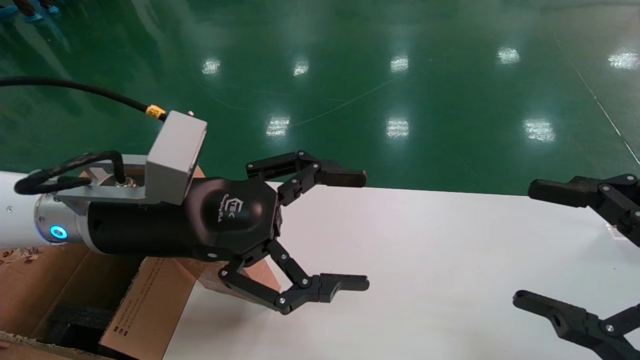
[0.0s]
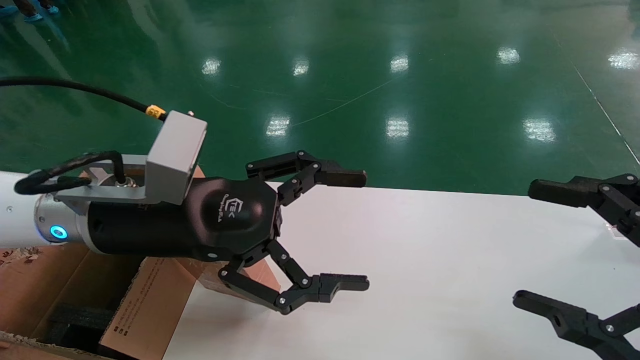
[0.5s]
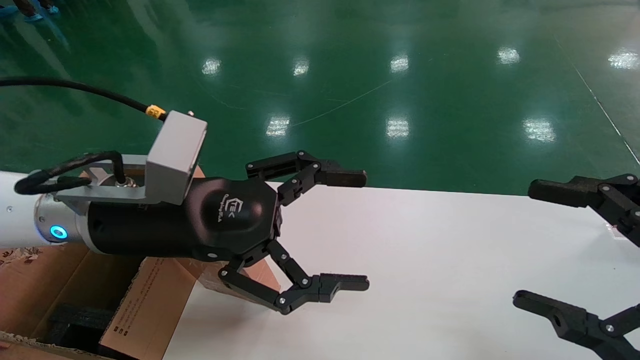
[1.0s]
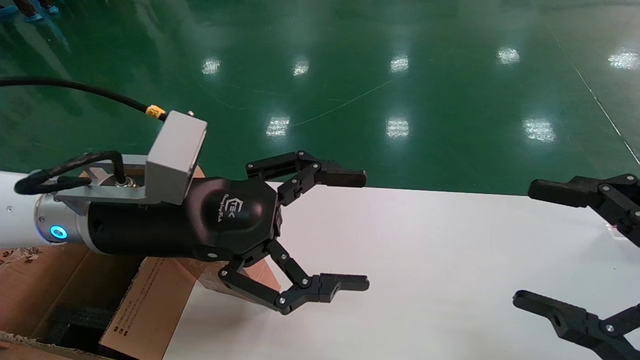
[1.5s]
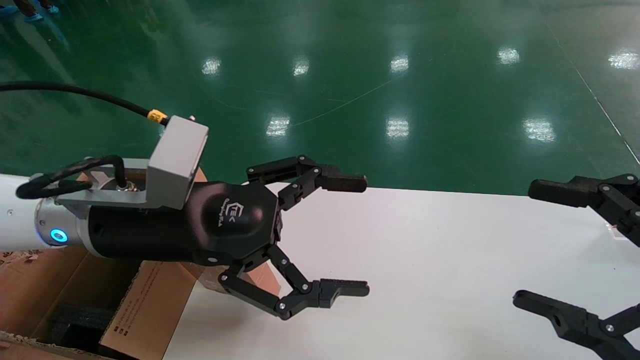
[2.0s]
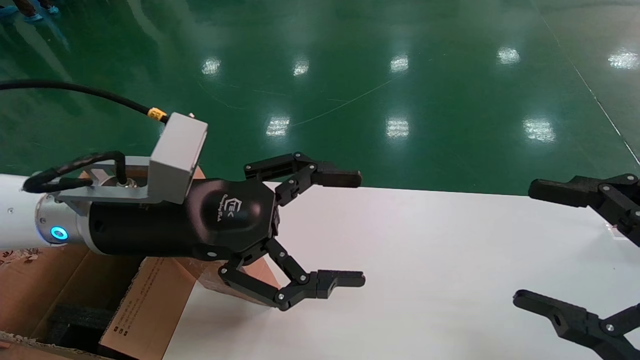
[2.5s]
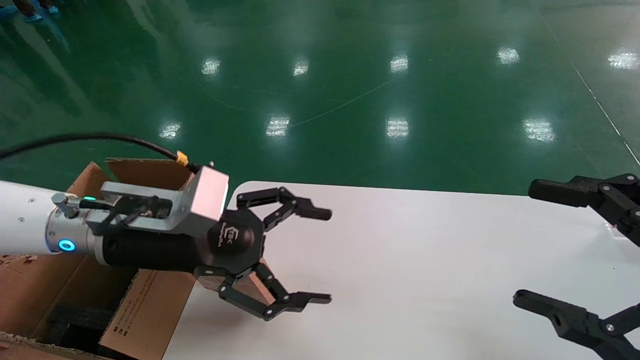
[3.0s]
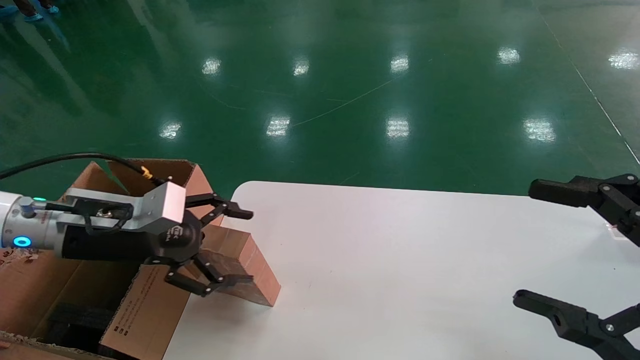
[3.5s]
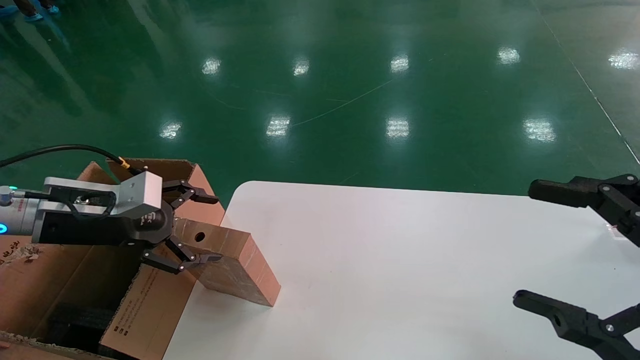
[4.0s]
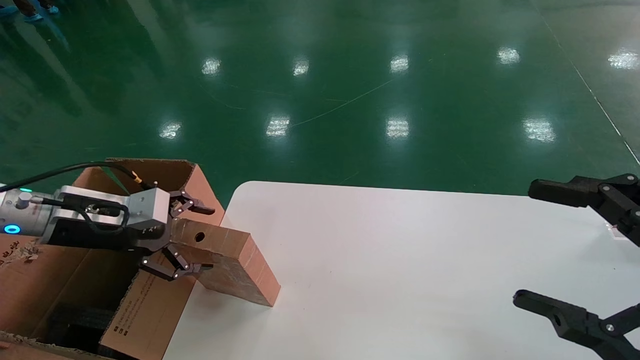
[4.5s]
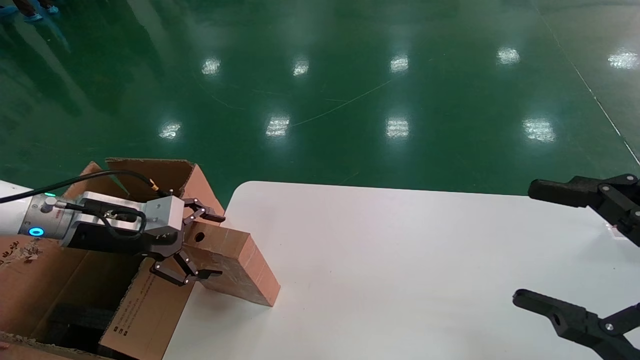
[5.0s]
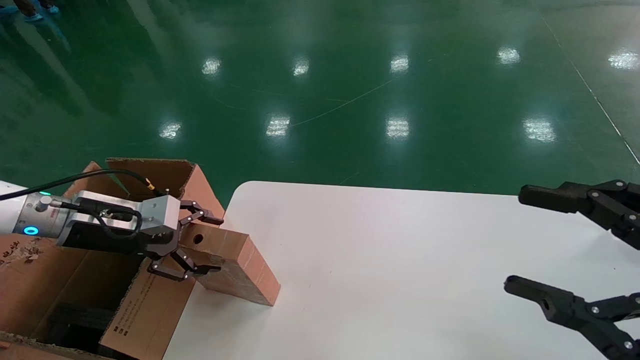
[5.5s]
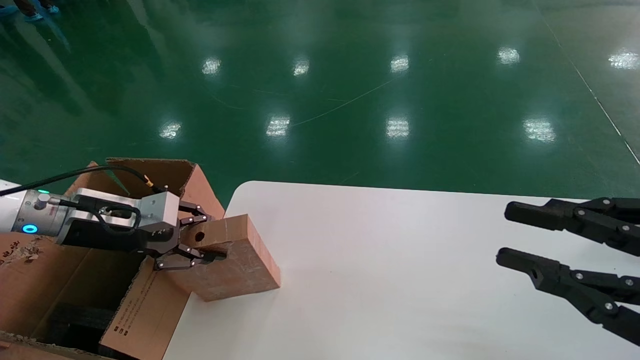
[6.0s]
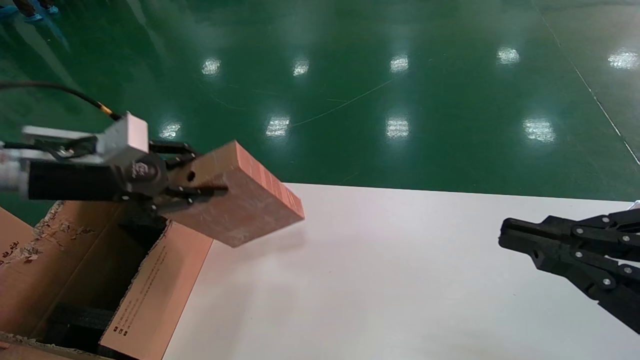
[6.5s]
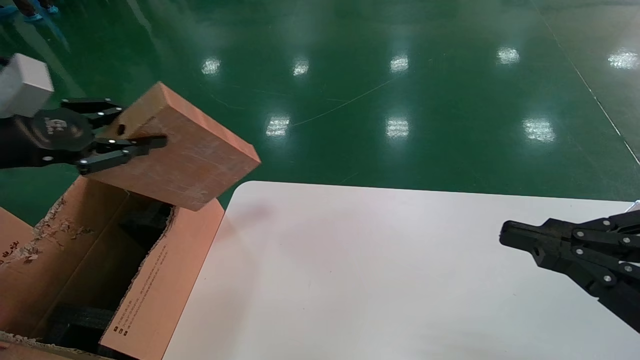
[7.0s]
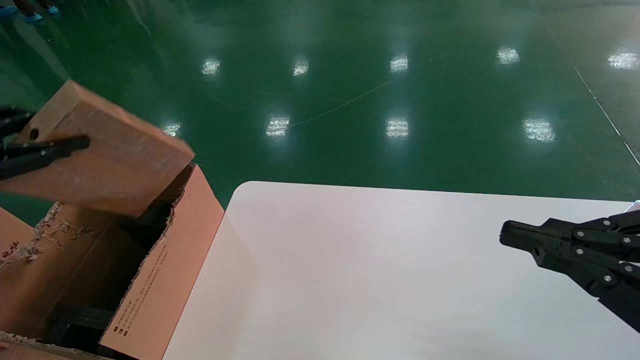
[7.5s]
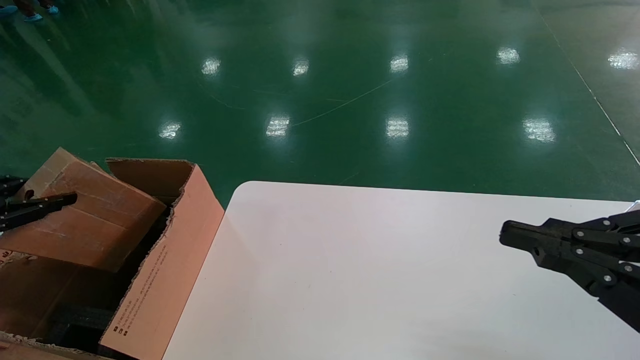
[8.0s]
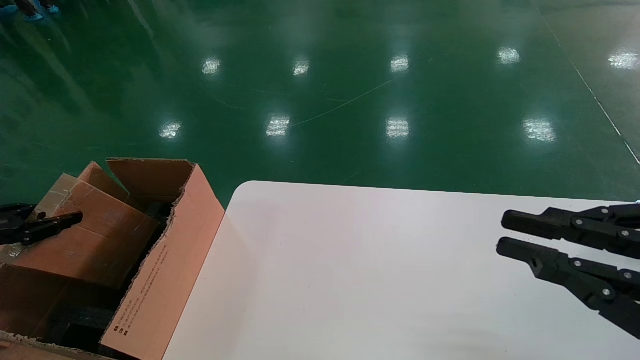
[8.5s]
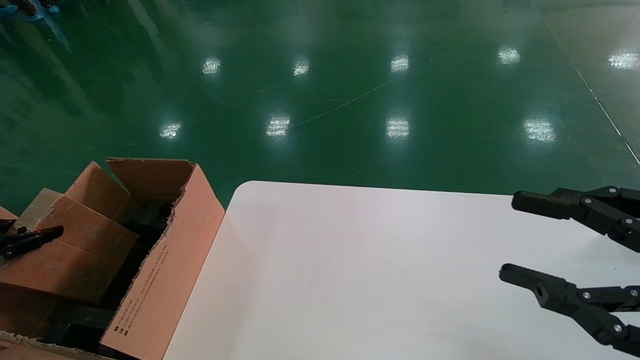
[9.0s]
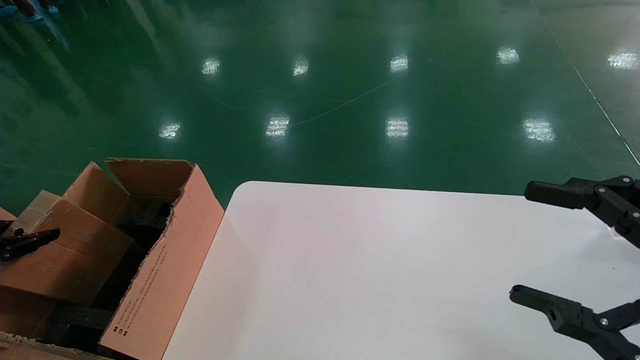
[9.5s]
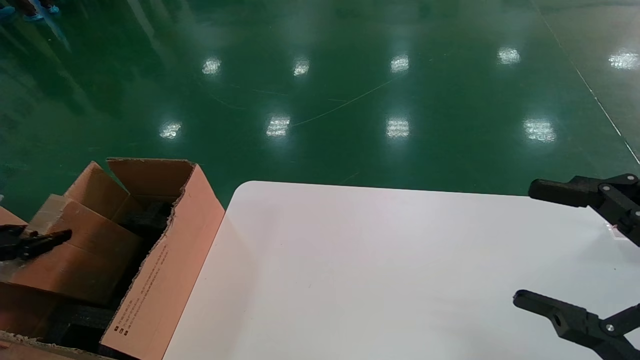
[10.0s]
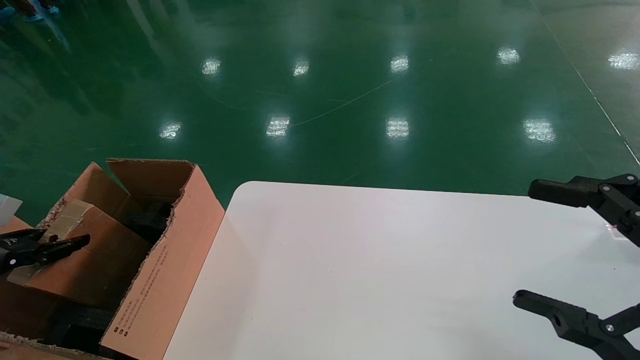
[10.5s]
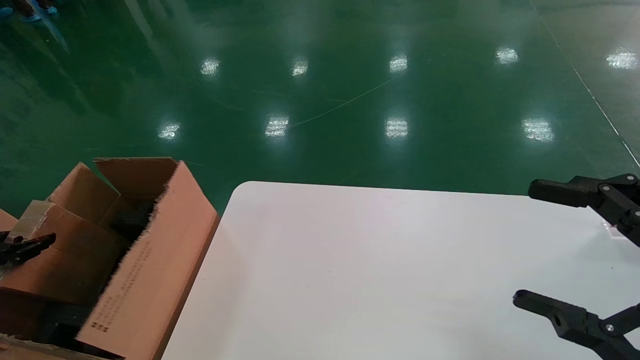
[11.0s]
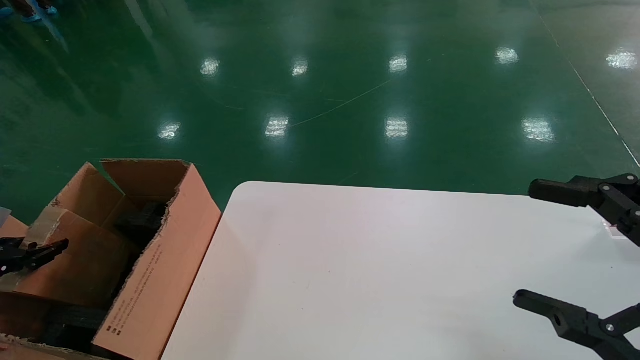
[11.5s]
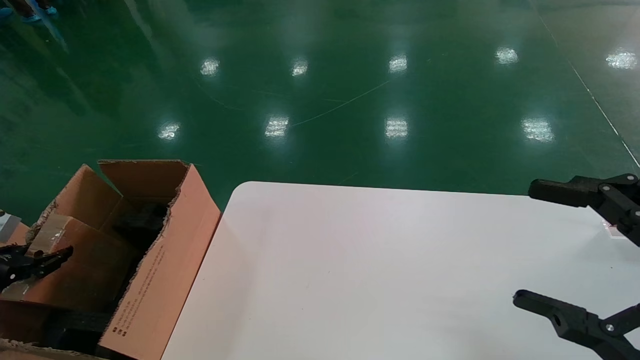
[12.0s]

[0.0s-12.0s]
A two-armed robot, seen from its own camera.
Task of the whole recording: put the box on the table into the big box.
Step, 3.0s to 6.0s: Pick up the mouse and the power cord paper box.
0.0s to 2.0s: Both grippers stay put.
2.0s to 4.0s: The left gripper shifts roughly 15 cm to the left.
4.0s to 6.0s: The left gripper closes up. The right gripper closes.
6.0s to 8.0s: The right gripper closes its fingers, while the left gripper heads to the left and backward, covering approximately 20 cm, and closes its fingers.
8.0s to 10.0s: The right gripper opens up; the left gripper goes some 10 cm downward.
10.0s to 12.0s: The left gripper heads downward, covering approximately 5 cm.

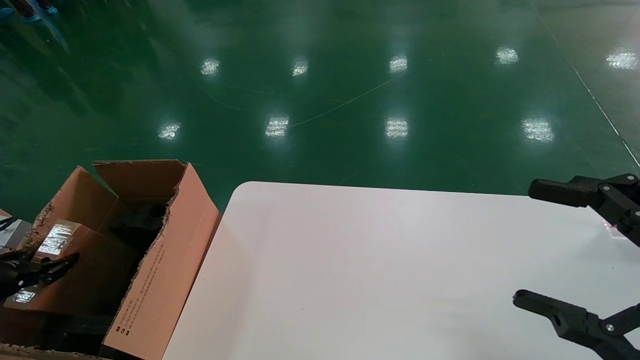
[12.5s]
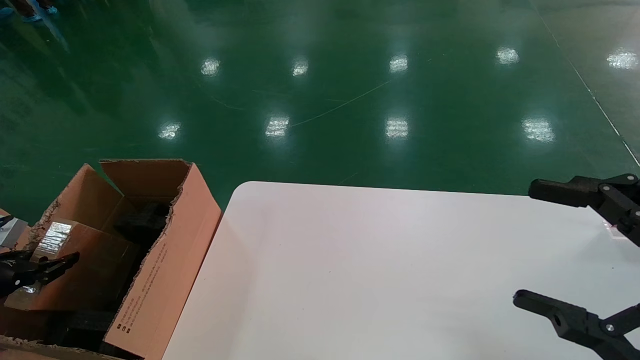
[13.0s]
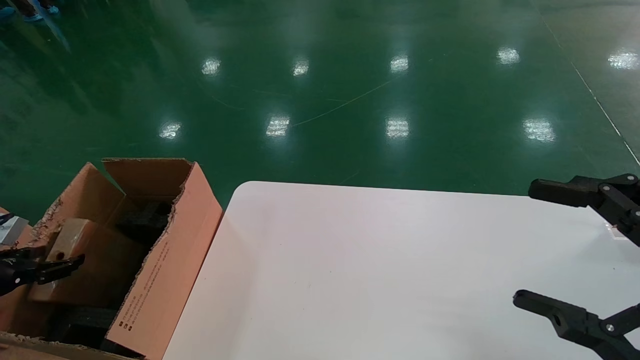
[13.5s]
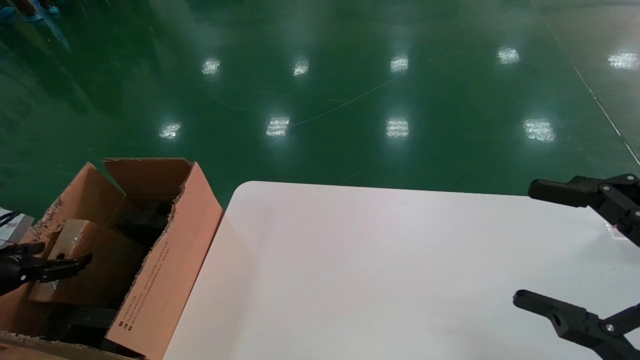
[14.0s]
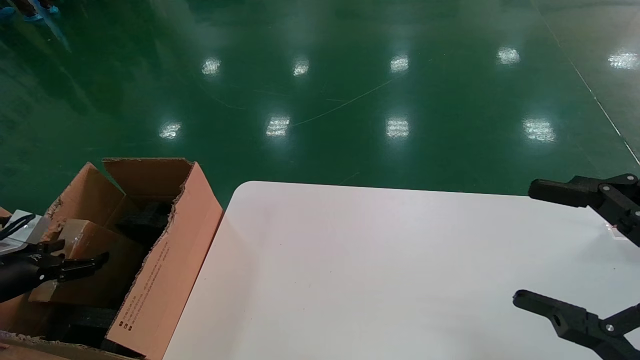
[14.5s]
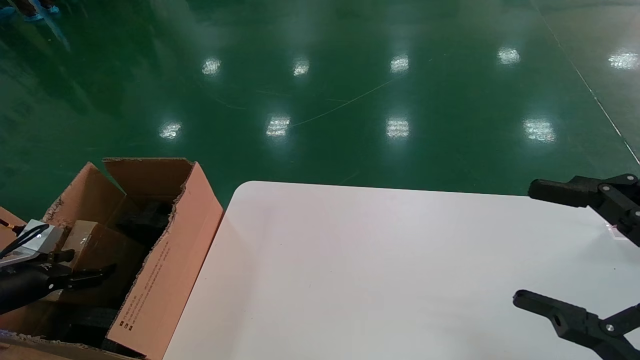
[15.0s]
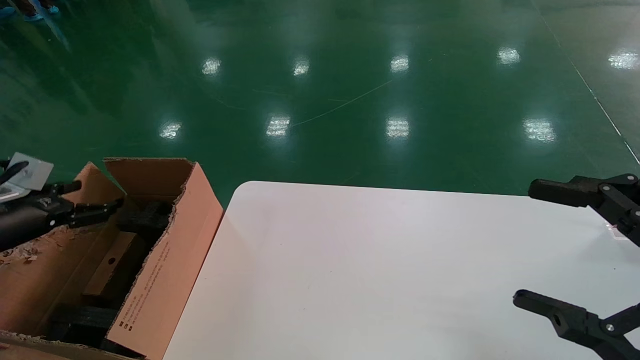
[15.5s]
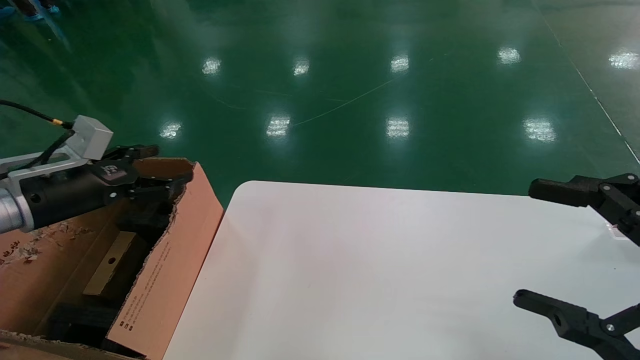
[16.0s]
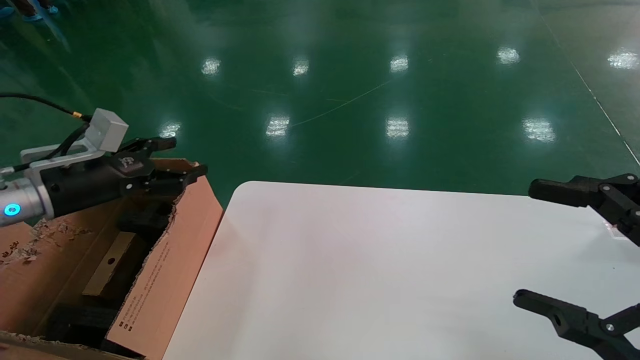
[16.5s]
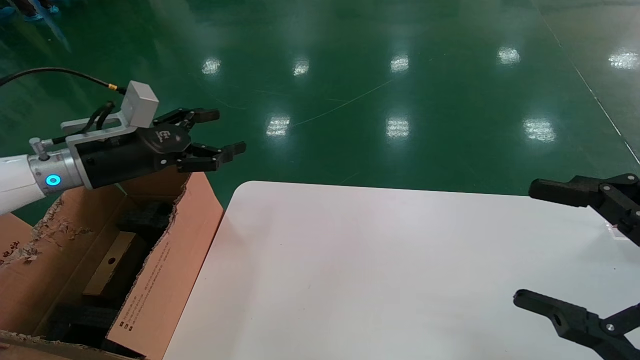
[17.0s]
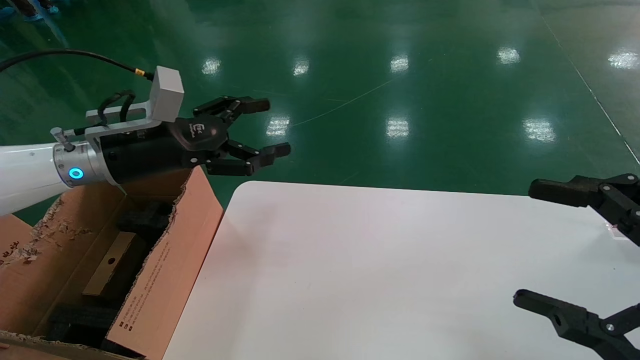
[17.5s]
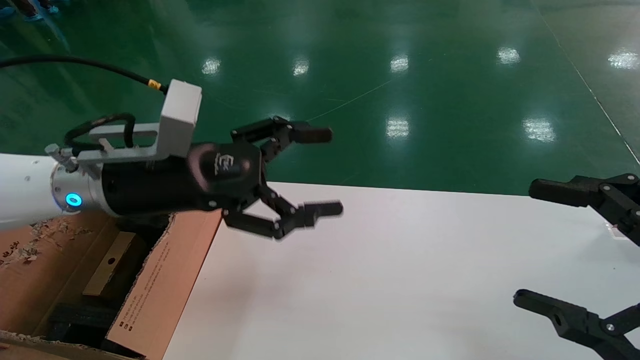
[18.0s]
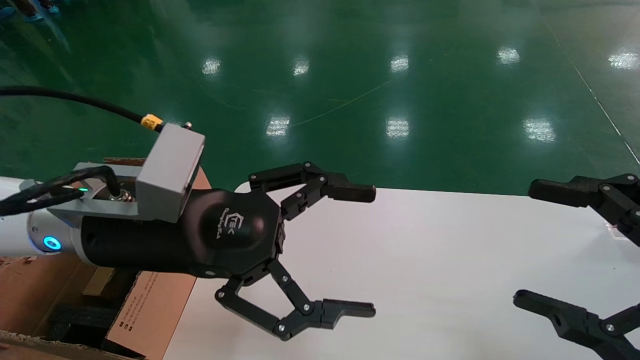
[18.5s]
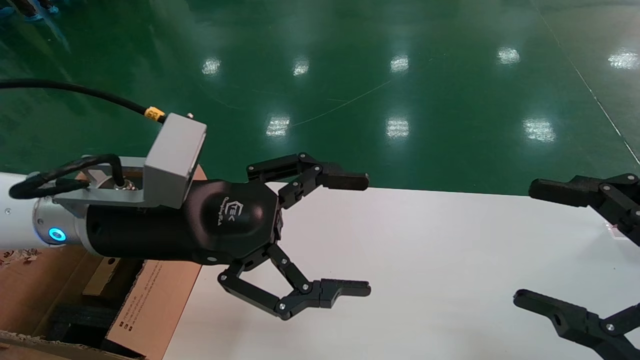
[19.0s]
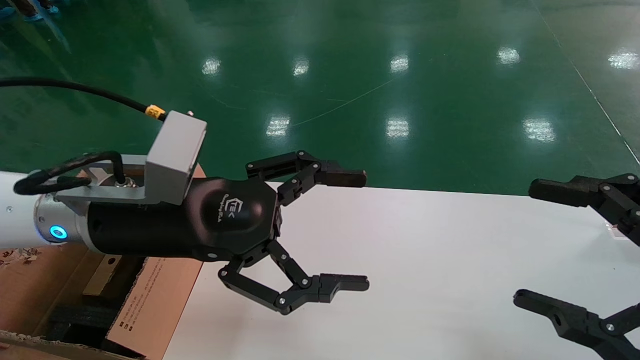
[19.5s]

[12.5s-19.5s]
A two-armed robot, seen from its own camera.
Task of the whole recording: put the box on the table into the big box.
12.5s to 14.5s: The left gripper opens up.
14.5s to 16.0s: The left gripper heads upward, to the right and forward, covering approximately 15 cm.
16.0s to 17.5s: The left gripper travels to the right, upward and forward by about 15 cm.
17.5s to 19.5s: The left gripper is displaced to the right and backward by roughly 15 cm.
